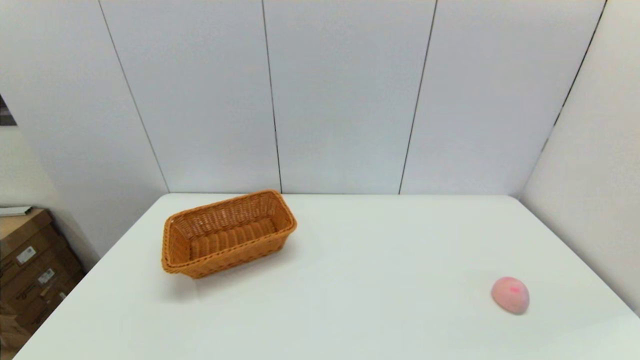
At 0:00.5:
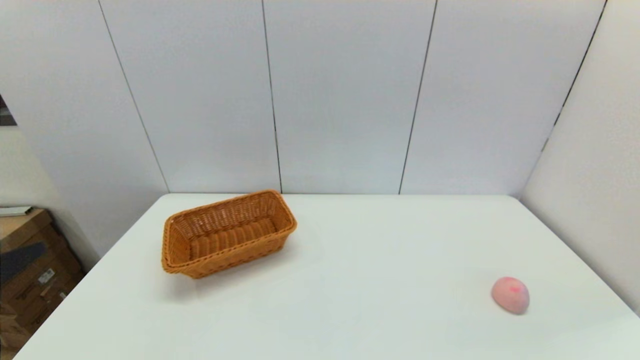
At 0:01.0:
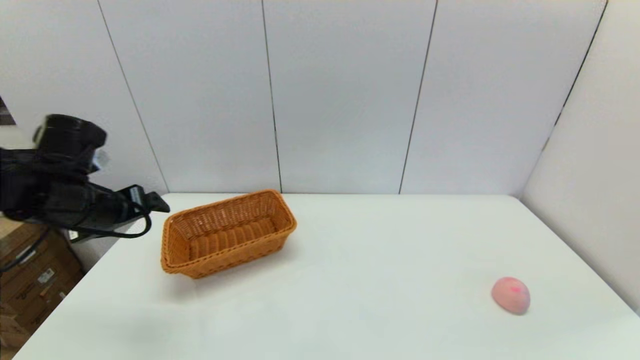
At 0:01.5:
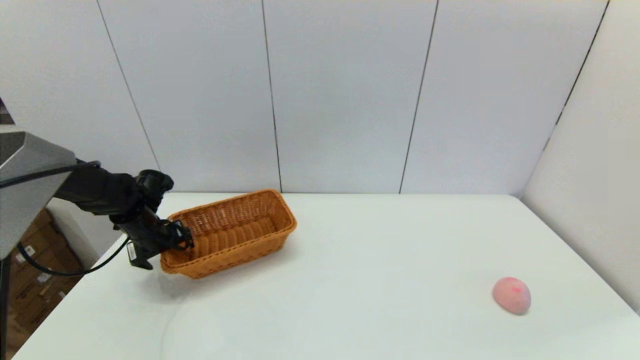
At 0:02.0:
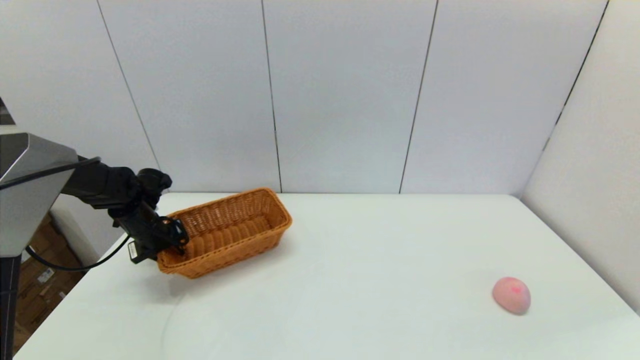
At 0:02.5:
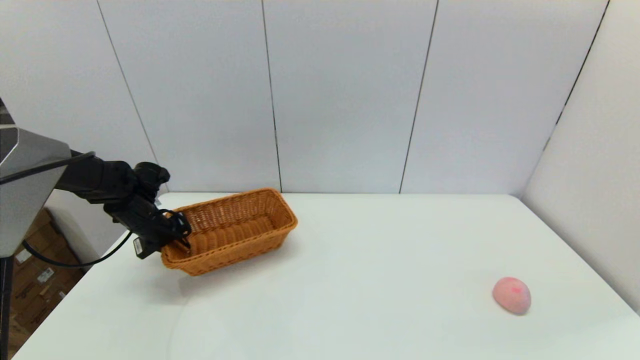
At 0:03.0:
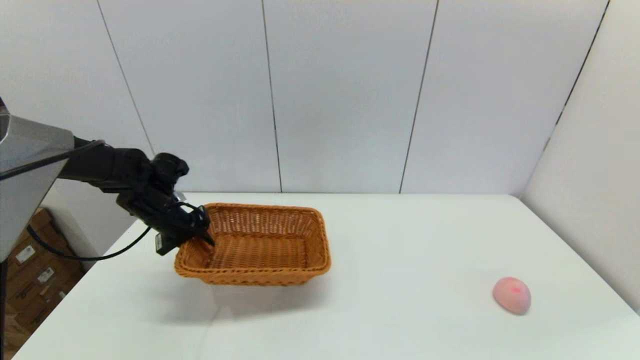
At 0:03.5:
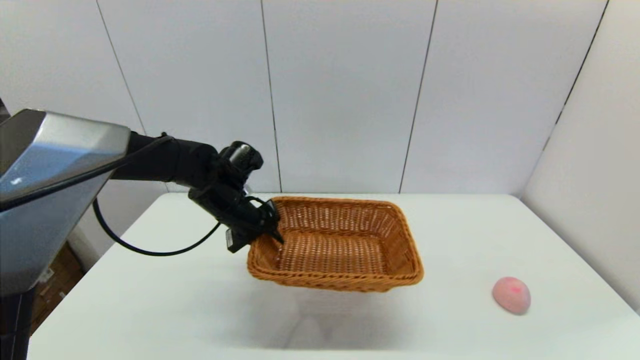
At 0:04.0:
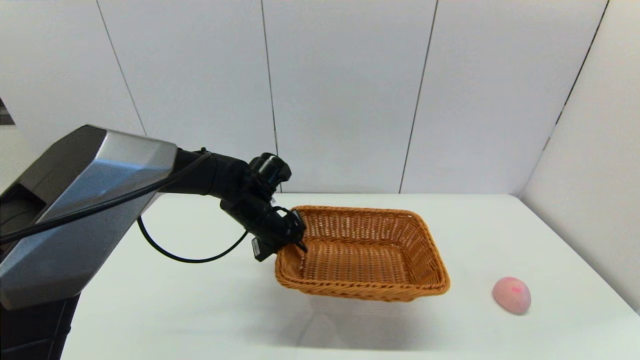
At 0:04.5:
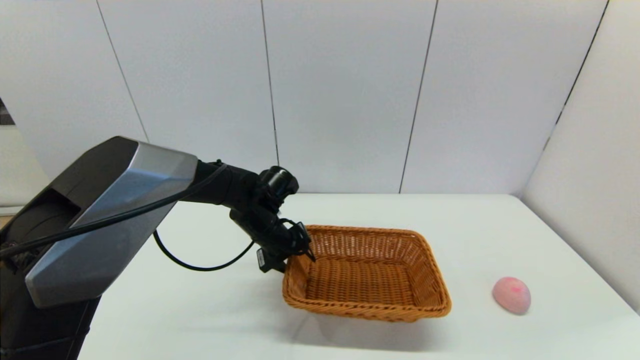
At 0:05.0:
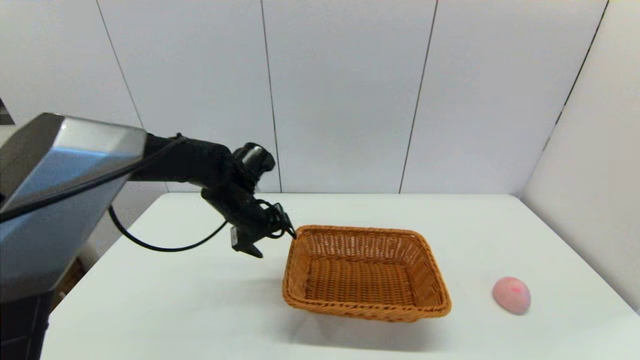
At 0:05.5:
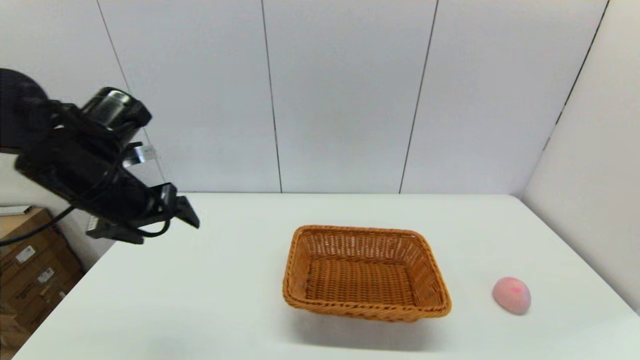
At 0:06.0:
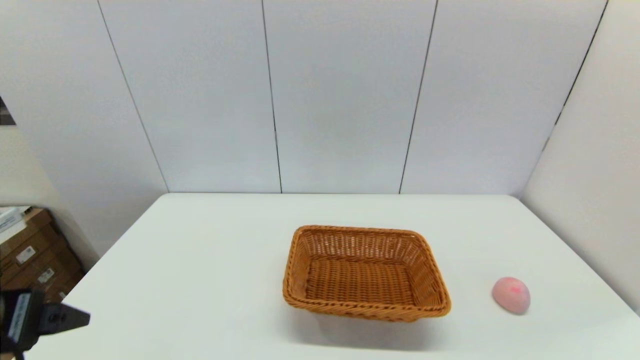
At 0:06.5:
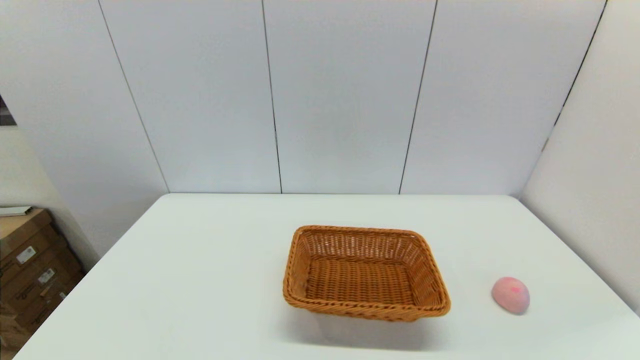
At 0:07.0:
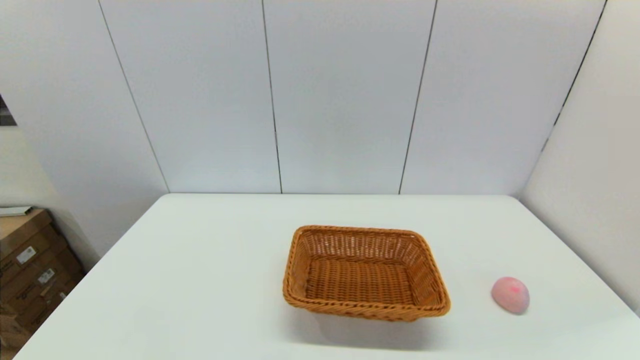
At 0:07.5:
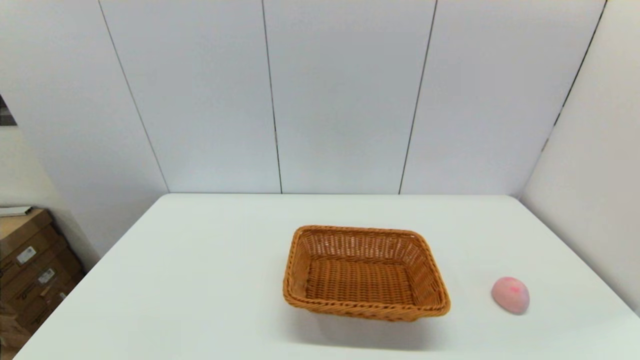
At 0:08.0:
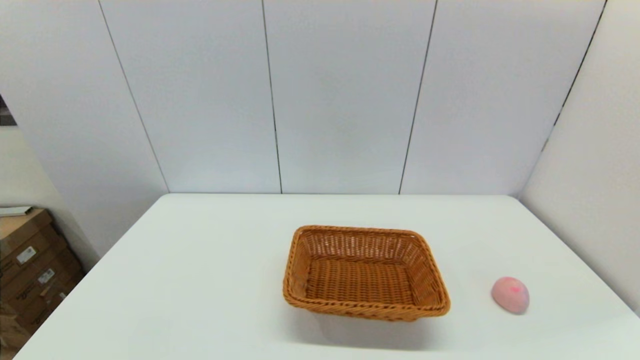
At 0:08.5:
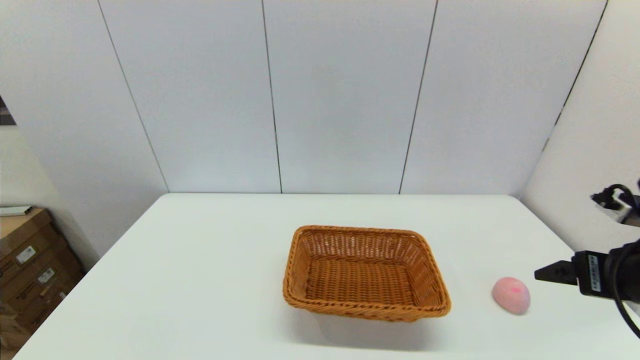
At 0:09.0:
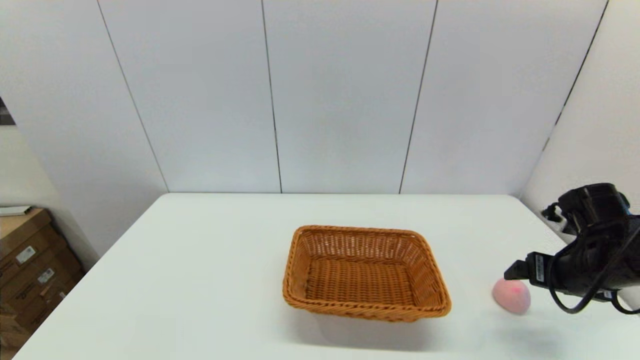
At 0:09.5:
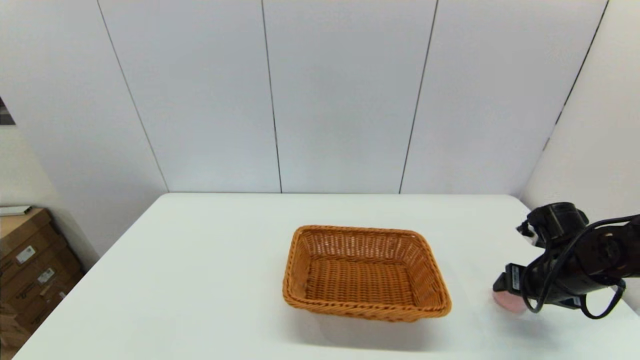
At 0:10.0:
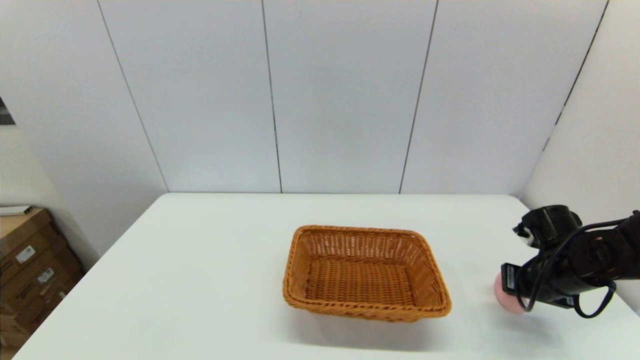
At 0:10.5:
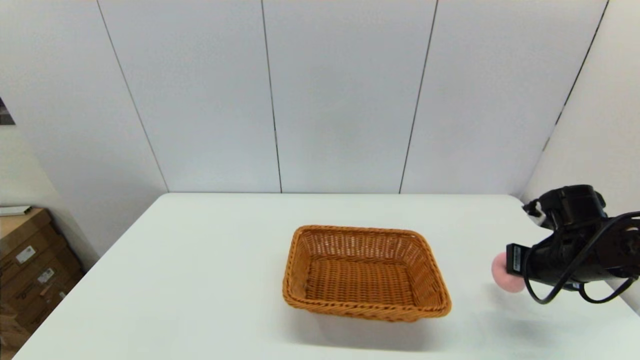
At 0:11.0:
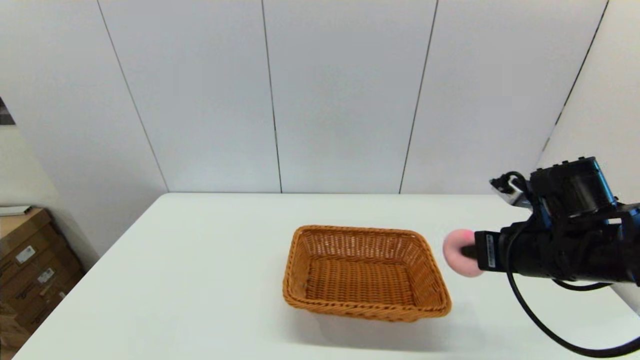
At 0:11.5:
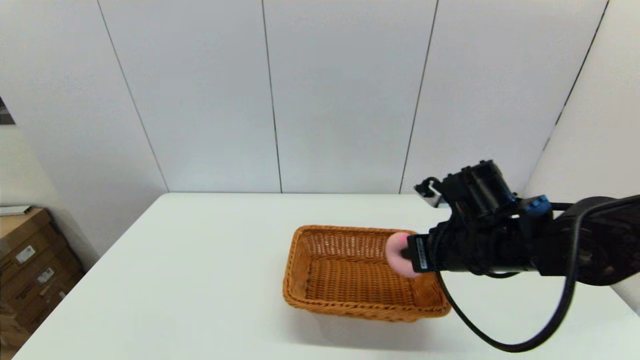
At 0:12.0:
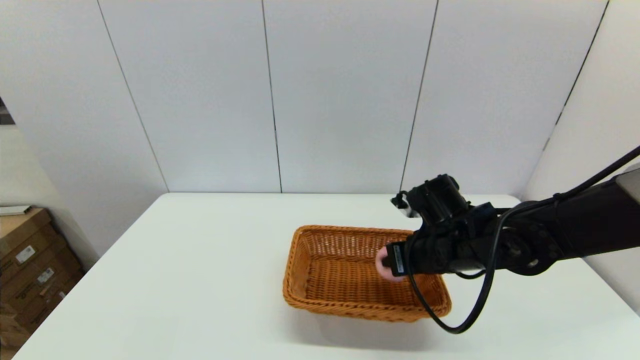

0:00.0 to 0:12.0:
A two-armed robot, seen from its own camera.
Step, 0:00.0 to 0:02.5: Grasp the light basket with the left gripper.
Step, 0:03.0 to 0:04.5: Place the light basket on the middle of the table with the left gripper.
Step, 0:05.0 to 0:10.0: Grasp the peach with the right gripper.
0:00.0 to 0:02.0: The left gripper goes some 40 cm forward, and closes up.
0:02.0 to 0:04.0: The left gripper shifts roughly 25 cm to the right.
0:04.0 to 0:06.0: The left gripper heads backward, to the left and upward, covering some 35 cm, and opens.
0:06.0 to 0:08.0: The left gripper travels downward and backward by about 20 cm.
0:08.0 to 0:10.0: The right gripper heads forward and downward, covering approximately 30 cm, and closes up.
0:10.0 to 0:12.0: The right gripper travels to the left by some 20 cm, and opens.

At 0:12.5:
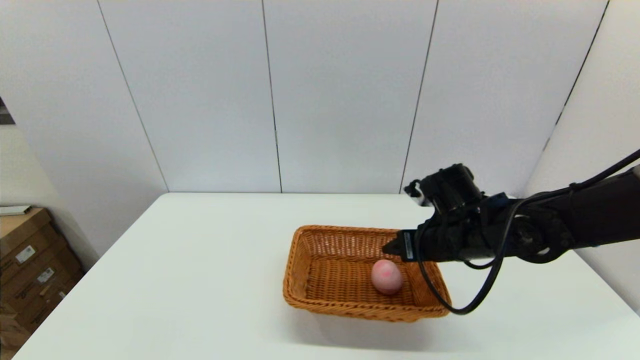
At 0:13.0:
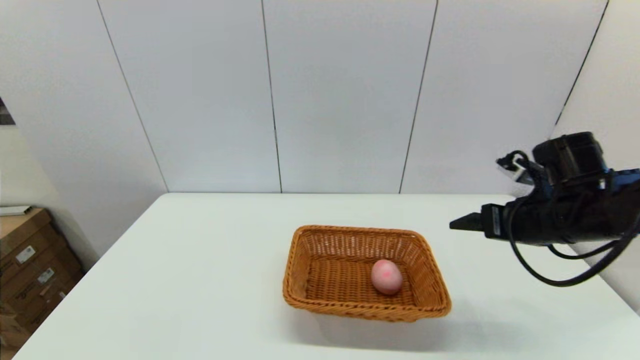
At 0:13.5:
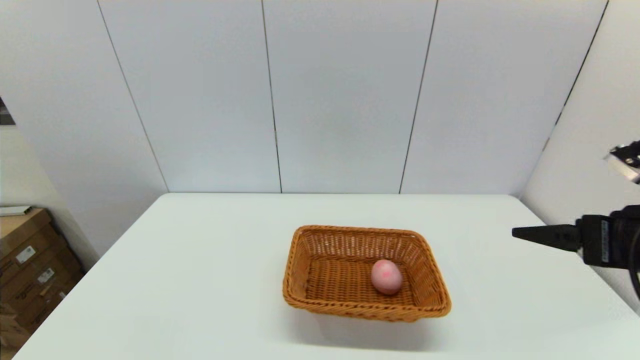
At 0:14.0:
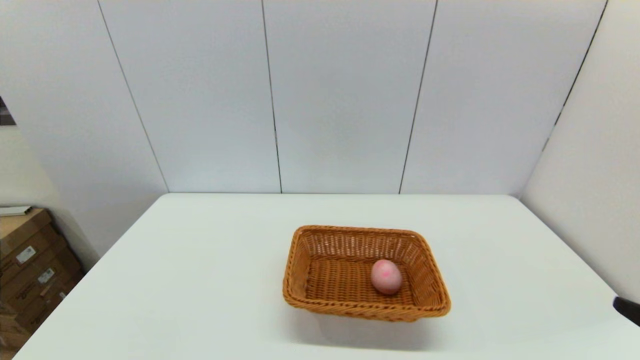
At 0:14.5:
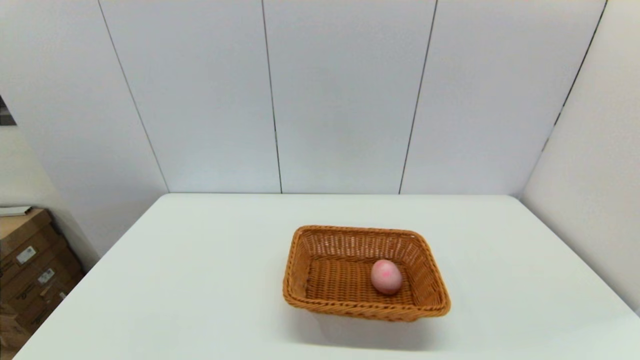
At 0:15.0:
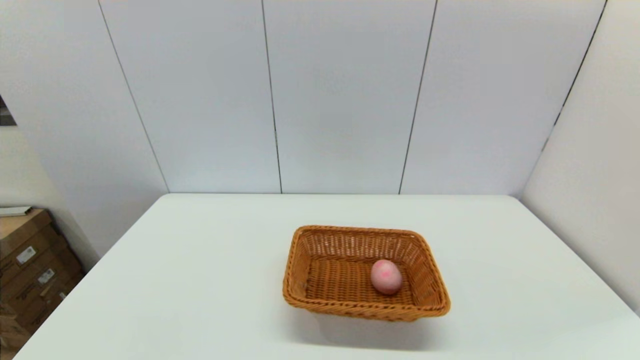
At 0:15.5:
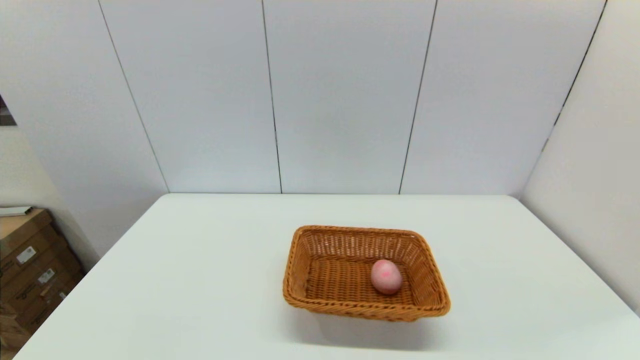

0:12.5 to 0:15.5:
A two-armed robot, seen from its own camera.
0:12.5 to 0:14.0: The right gripper travels backward and to the right by about 30 cm.

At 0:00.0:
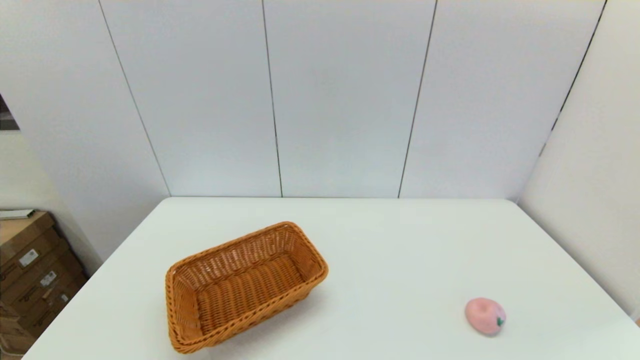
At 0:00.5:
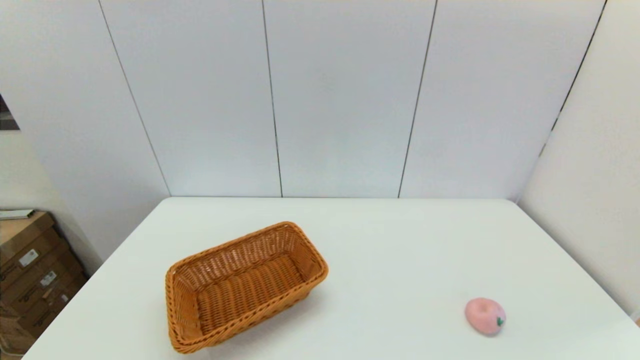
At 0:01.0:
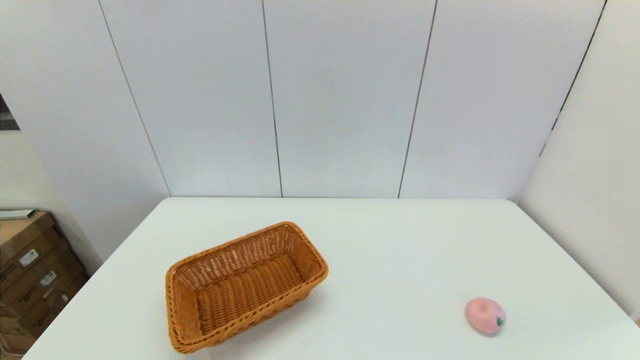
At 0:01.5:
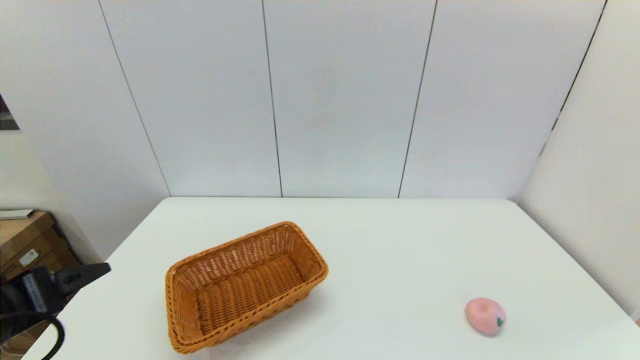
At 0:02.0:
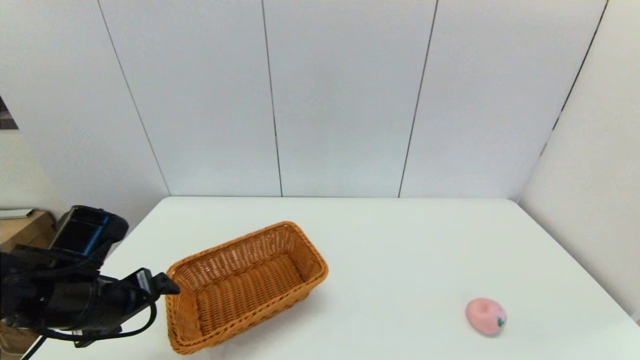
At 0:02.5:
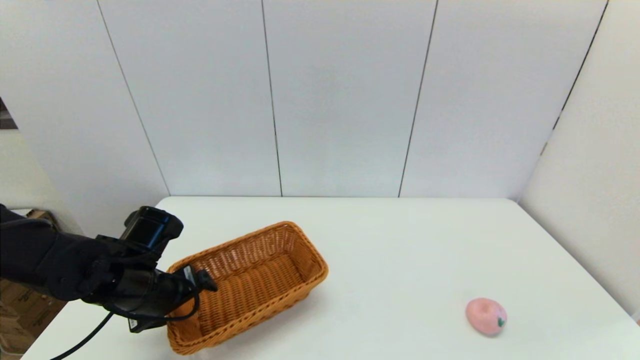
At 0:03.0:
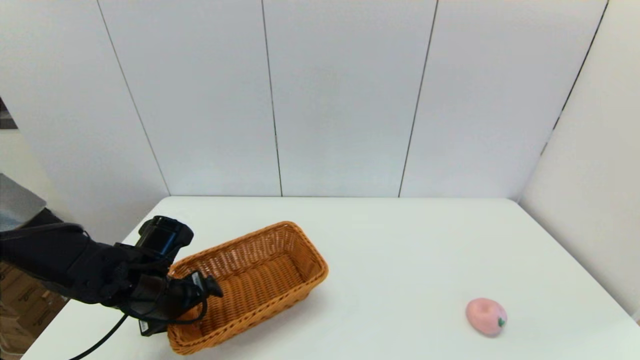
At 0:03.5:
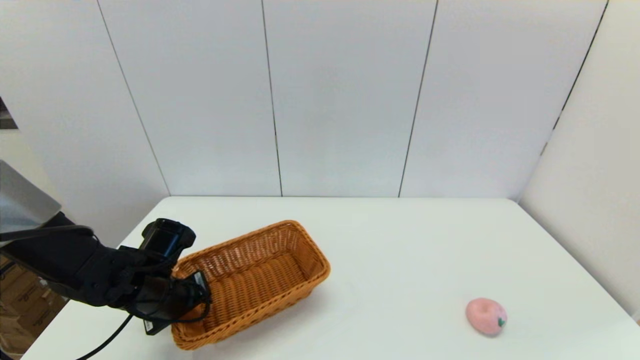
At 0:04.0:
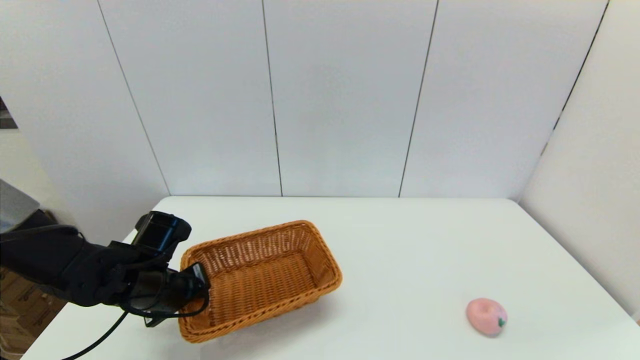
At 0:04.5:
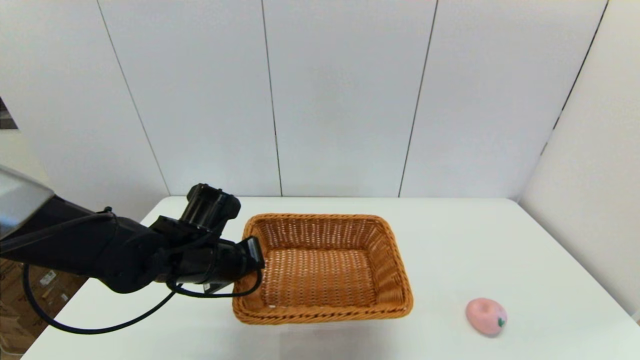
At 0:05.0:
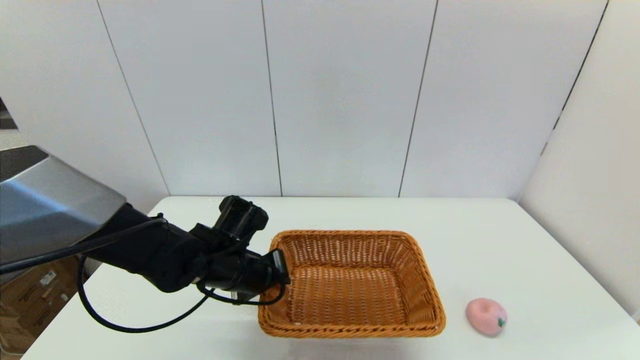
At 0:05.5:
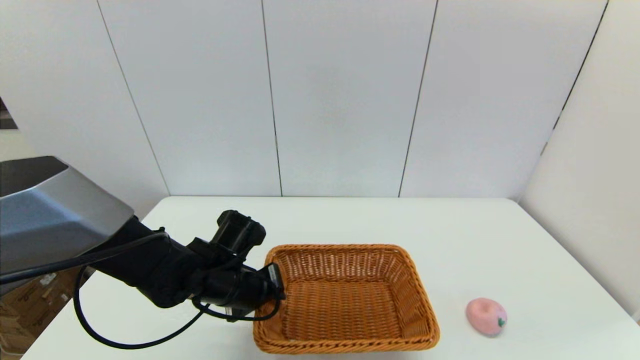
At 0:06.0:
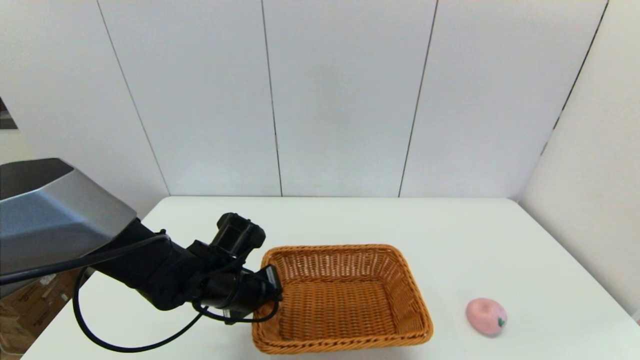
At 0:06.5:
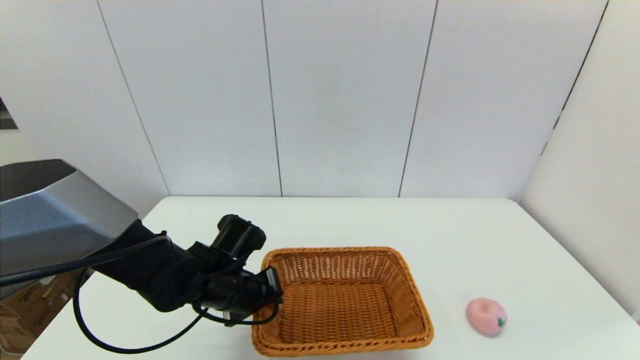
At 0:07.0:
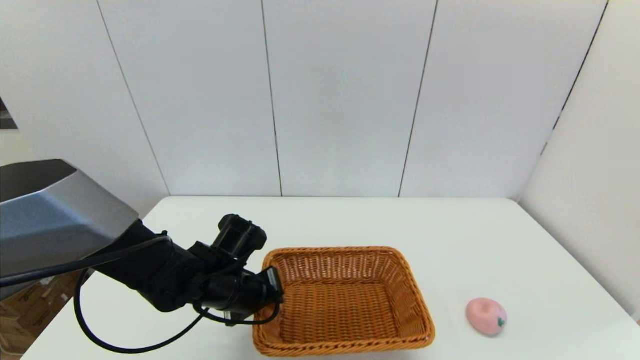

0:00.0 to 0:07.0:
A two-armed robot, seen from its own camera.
Step, 0:00.0 to 0:03.5: Grasp the light basket with the left gripper.
0:00.0 to 0:02.0: The left gripper travels forward by some 25 cm.
0:02.0 to 0:03.5: The left gripper heads downward and forward, covering about 10 cm, and closes up.
0:03.5 to 0:05.0: The left gripper heads to the right, covering approximately 10 cm.
0:05.0 to 0:07.0: The grippers make only small movements.
